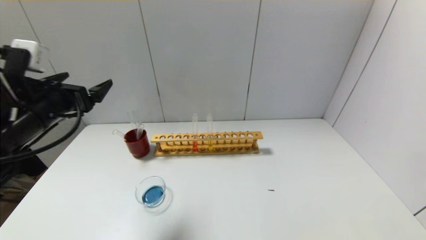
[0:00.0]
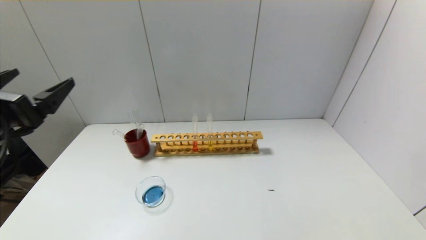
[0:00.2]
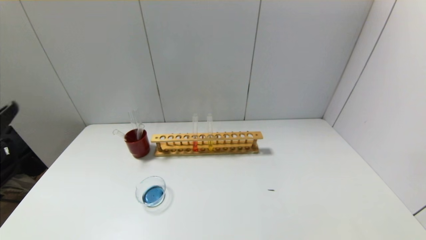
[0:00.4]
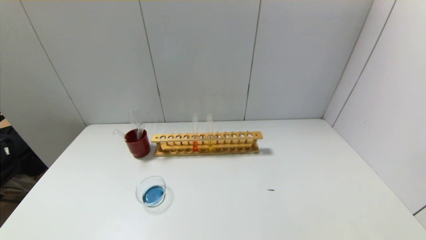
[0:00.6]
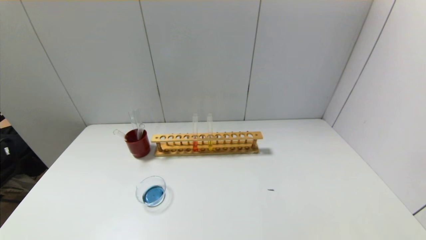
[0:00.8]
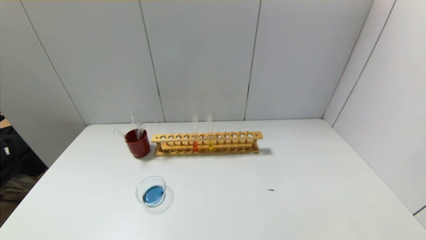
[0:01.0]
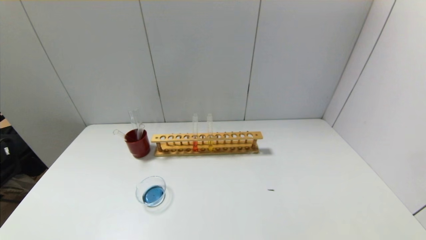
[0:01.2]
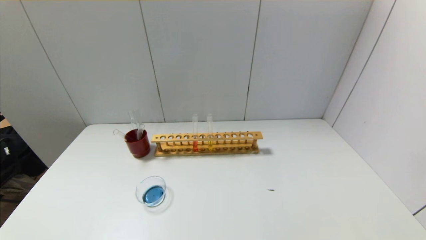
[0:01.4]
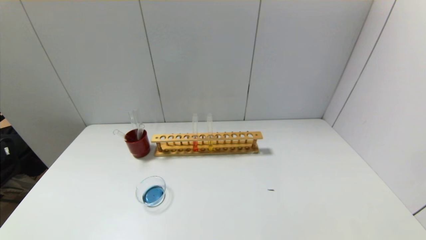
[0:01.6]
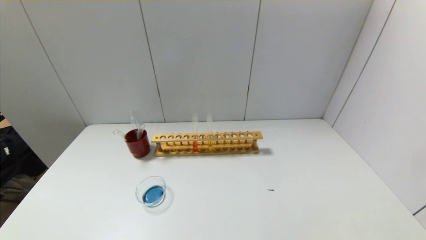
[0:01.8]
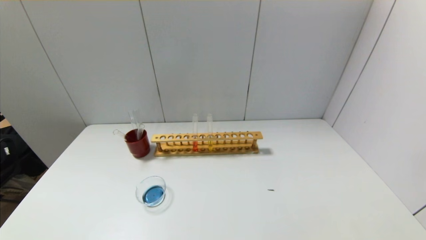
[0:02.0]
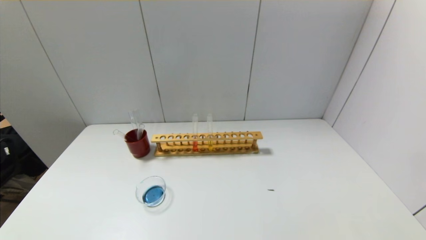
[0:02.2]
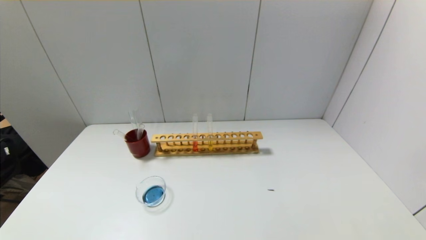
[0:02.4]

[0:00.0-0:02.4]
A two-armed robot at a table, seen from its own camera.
0:00.0 to 0:01.2: The left gripper is displaced backward and downward by approximately 30 cm.
